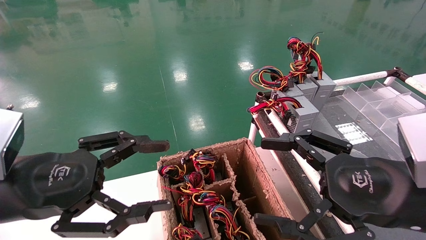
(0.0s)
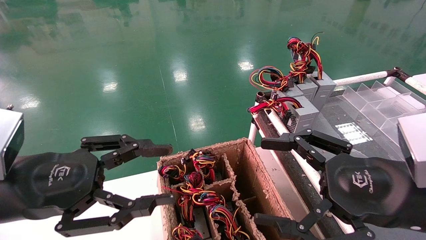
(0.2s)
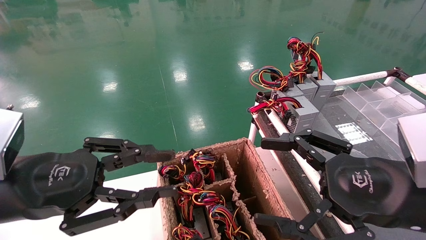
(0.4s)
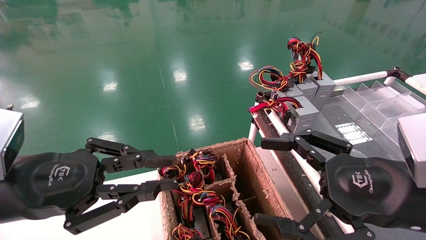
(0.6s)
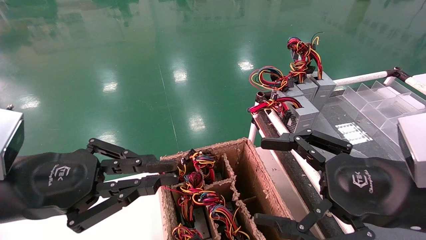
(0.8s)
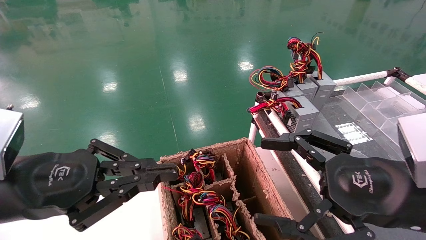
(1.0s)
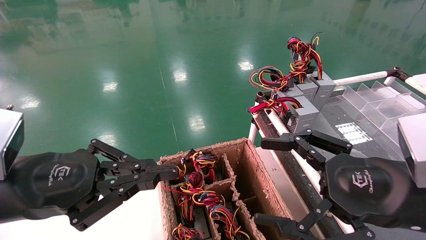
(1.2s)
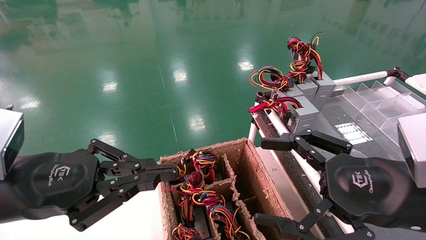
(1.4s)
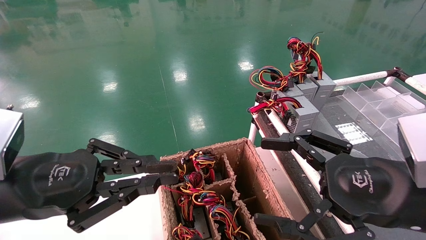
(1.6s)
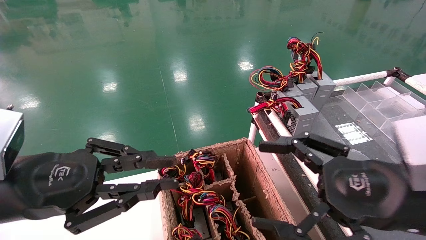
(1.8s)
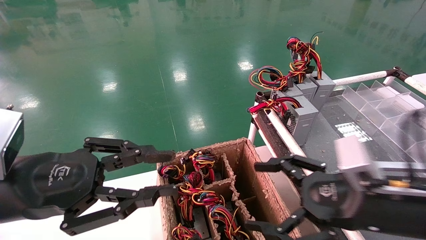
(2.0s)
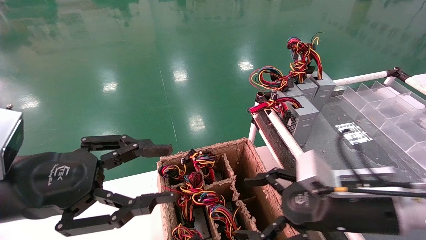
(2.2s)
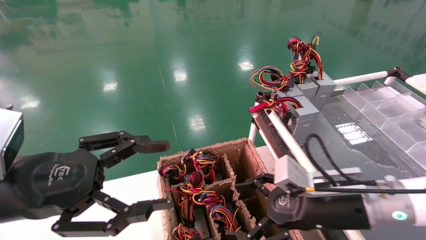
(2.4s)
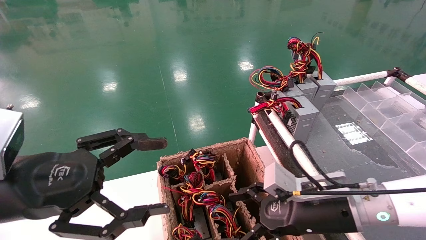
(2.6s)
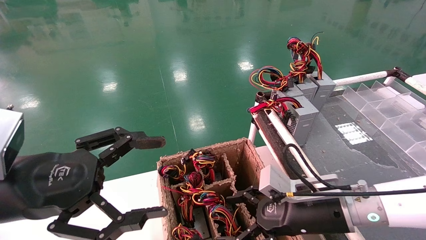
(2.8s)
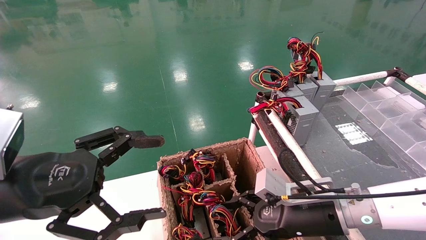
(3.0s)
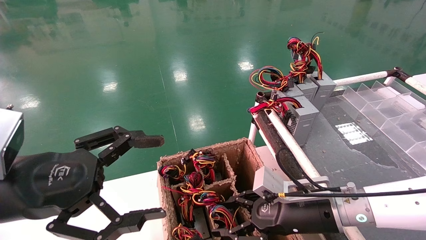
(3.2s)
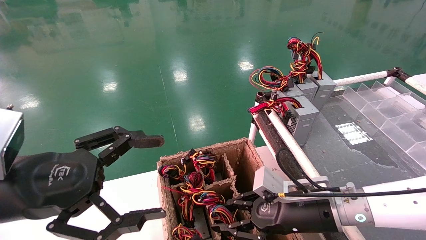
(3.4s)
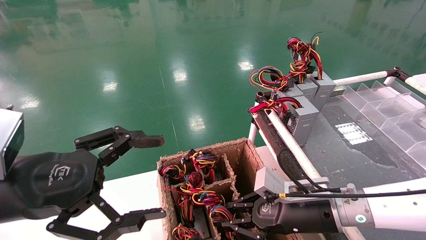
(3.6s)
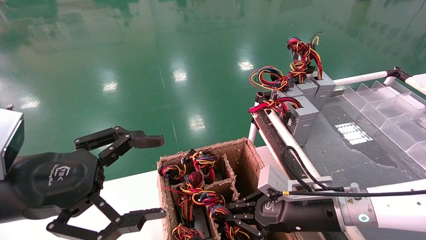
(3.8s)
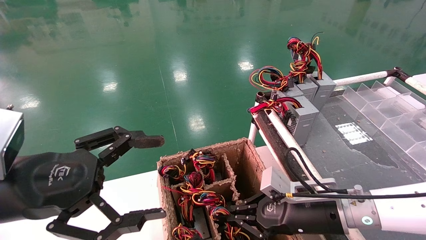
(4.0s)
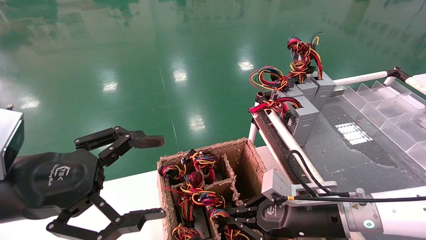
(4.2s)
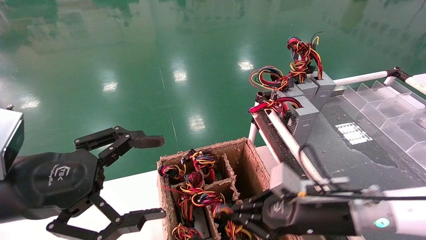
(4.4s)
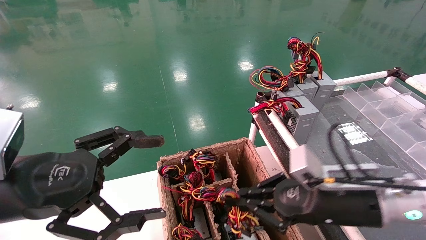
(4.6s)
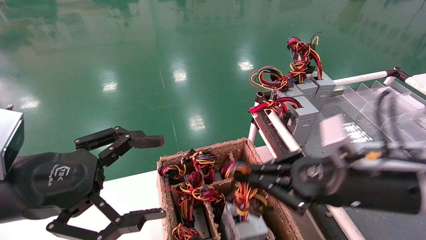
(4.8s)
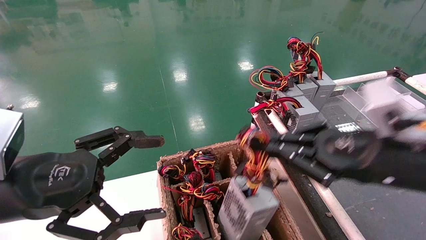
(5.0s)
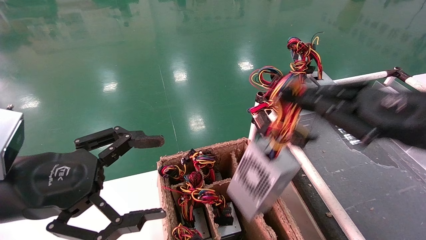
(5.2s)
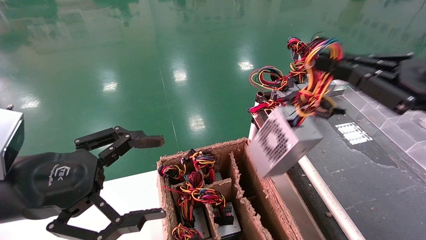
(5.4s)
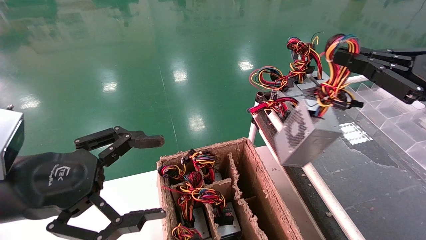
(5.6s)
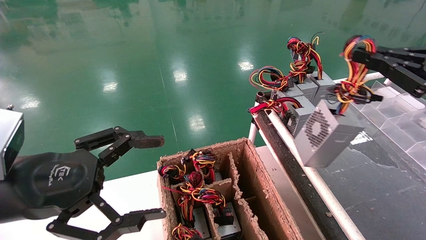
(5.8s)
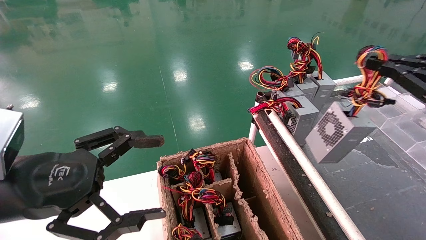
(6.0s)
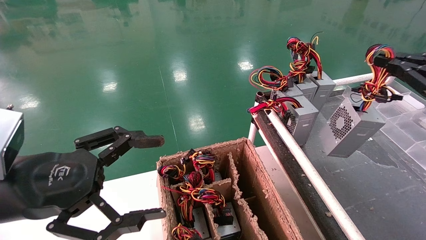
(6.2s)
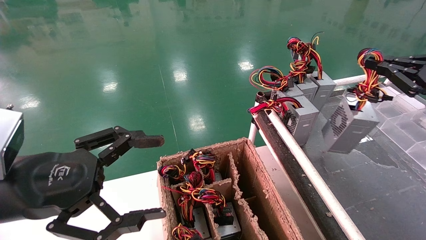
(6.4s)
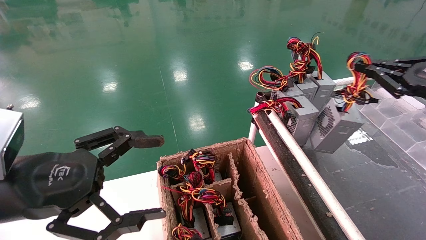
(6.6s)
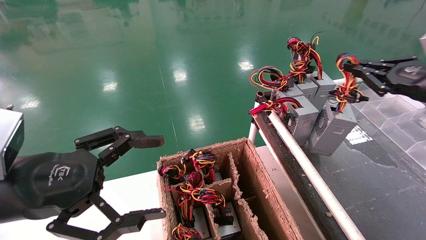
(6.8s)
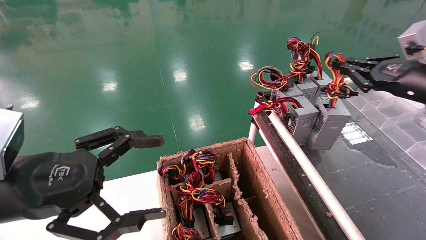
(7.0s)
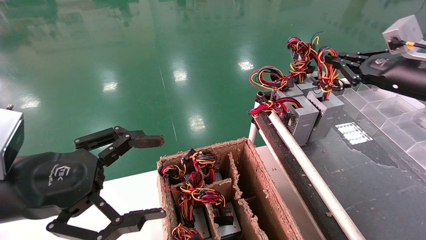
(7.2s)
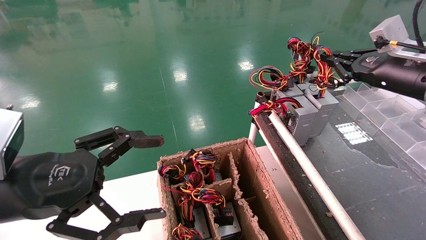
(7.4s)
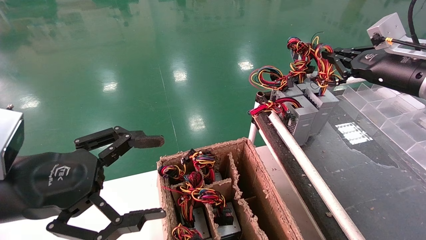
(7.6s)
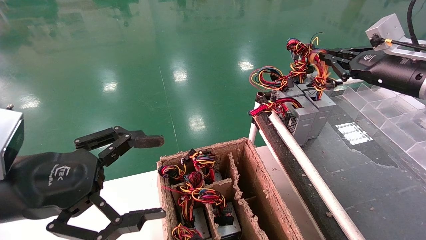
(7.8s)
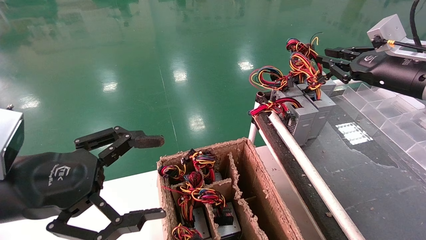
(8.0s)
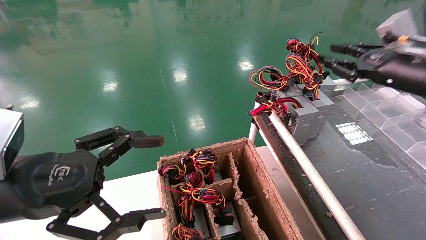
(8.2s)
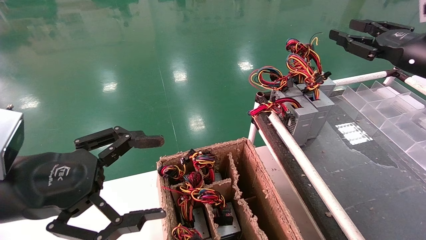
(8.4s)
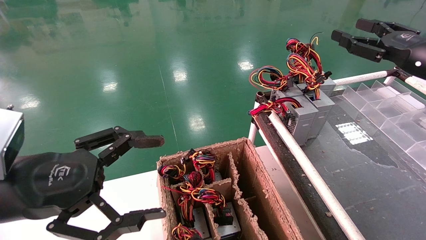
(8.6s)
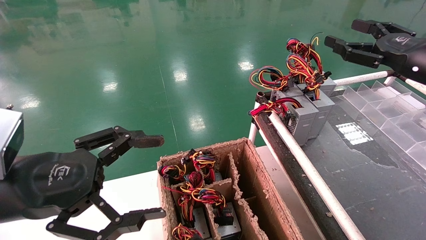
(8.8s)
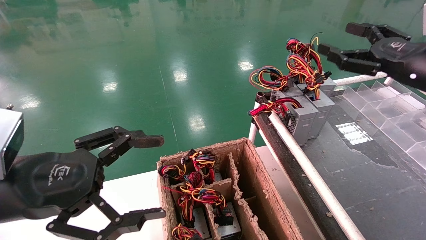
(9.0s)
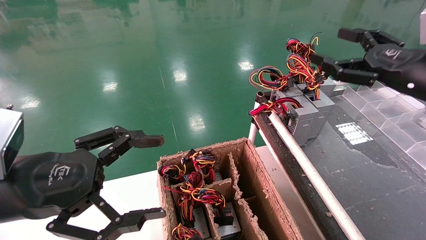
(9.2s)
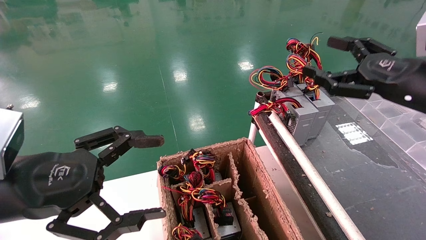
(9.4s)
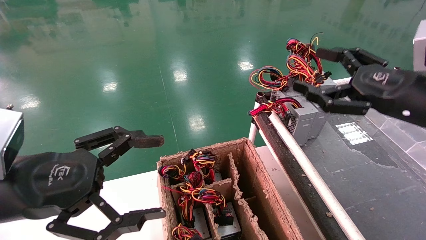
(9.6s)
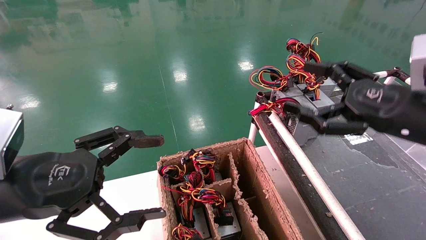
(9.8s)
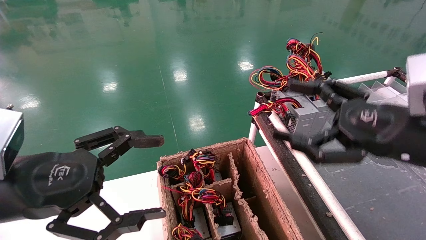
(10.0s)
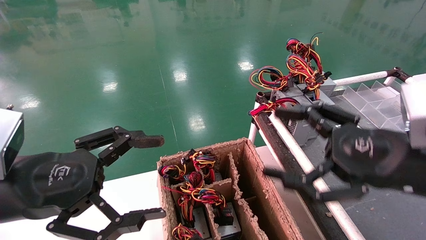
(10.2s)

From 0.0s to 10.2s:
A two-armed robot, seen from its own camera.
Step, from 1.2s to 3.8s: Grab and lift the power supply from the large box.
Step, from 4.0s to 7.8s: Place the power supply on the operating table.
From 0.0s to 1.4s: The left gripper closes.
From 1.4s to 3.0s: The right gripper moves forward, downward and to the left, roughly 15 cm. The left gripper opens its fingers.
From 3.0s to 4.4s: The right gripper closes.
From 4.4s to 5.8s: The right gripper moves to the right and upward, approximately 25 cm.
From 5.8s to 7.2s: The right gripper shifts about 15 cm forward.
From 7.2s to 8.8s: The right gripper opens up.
From 8.8s to 10.2s: The right gripper shifts some 20 cm backward, to the left and downward.
